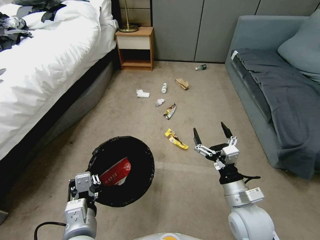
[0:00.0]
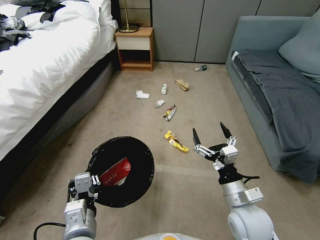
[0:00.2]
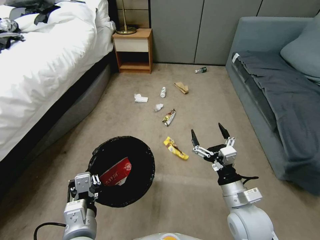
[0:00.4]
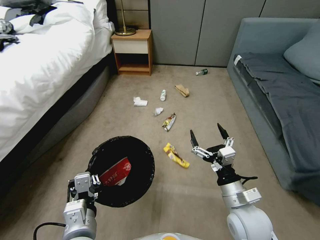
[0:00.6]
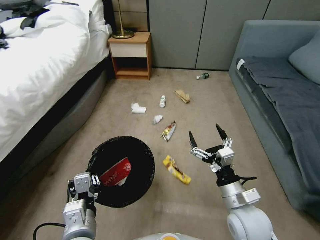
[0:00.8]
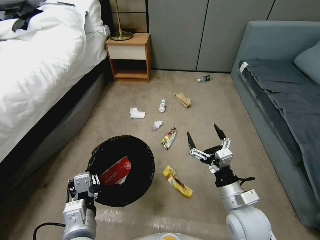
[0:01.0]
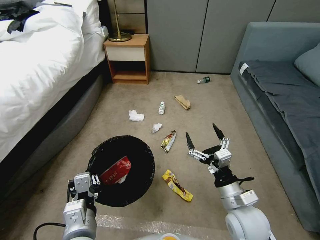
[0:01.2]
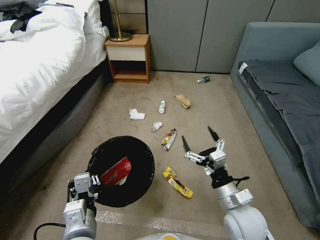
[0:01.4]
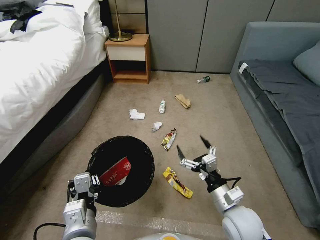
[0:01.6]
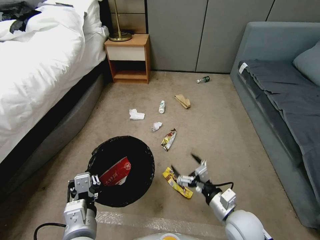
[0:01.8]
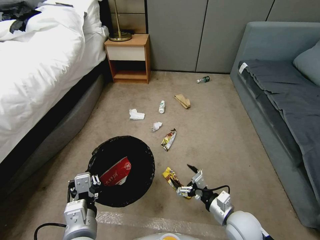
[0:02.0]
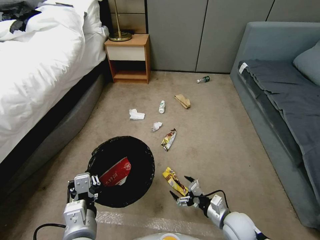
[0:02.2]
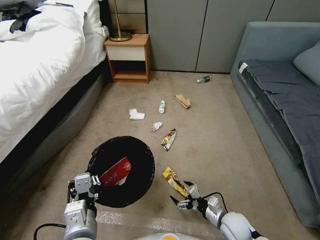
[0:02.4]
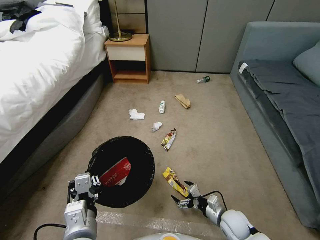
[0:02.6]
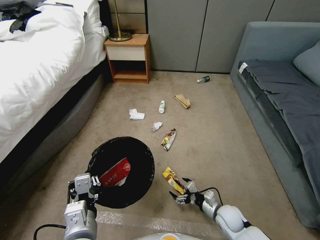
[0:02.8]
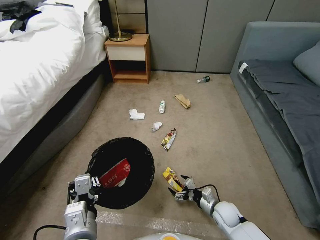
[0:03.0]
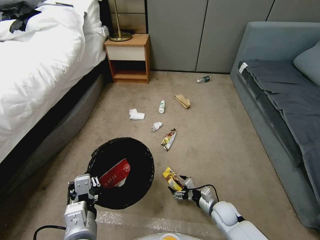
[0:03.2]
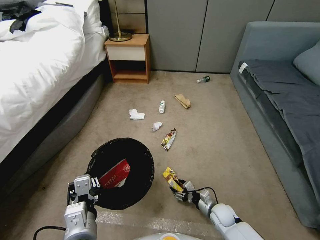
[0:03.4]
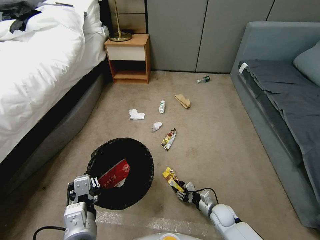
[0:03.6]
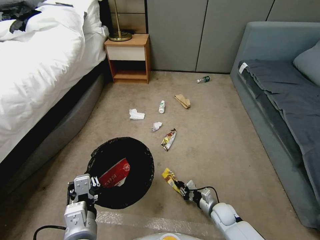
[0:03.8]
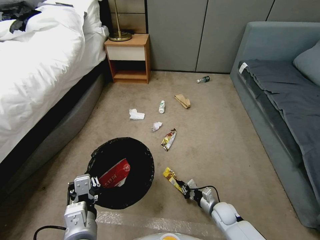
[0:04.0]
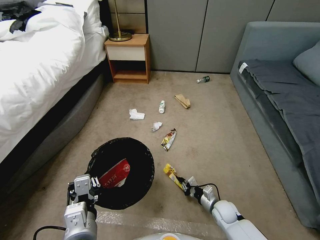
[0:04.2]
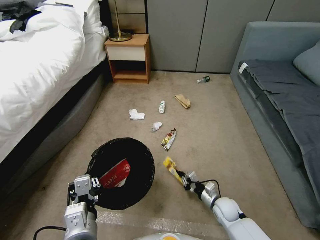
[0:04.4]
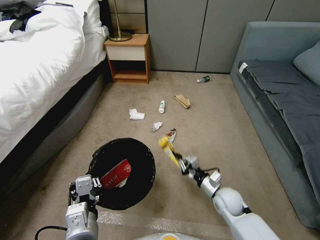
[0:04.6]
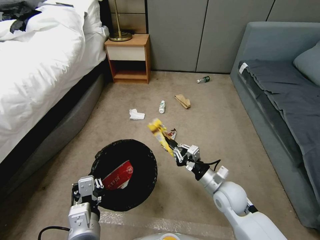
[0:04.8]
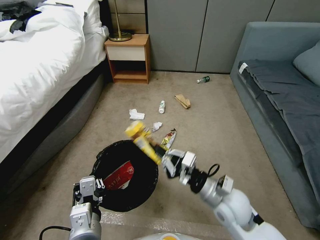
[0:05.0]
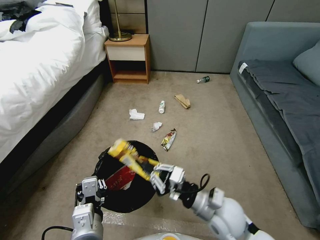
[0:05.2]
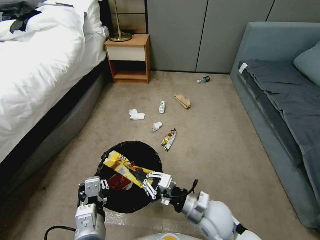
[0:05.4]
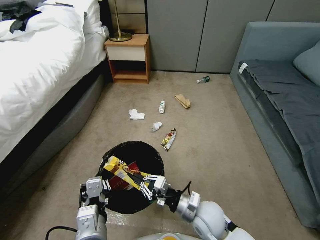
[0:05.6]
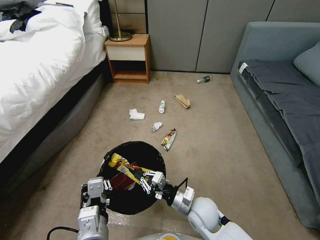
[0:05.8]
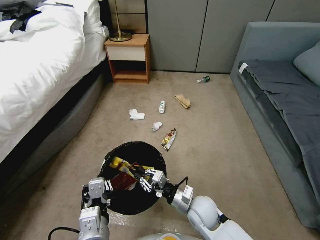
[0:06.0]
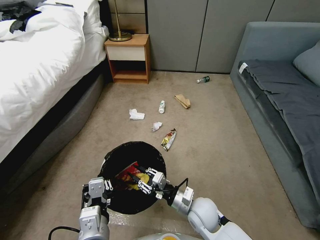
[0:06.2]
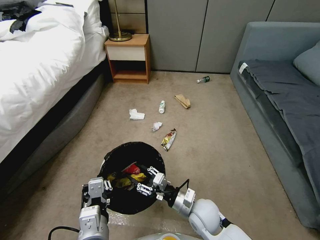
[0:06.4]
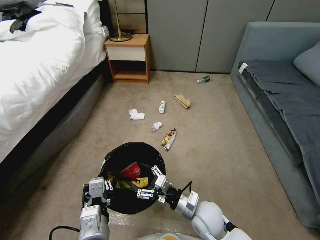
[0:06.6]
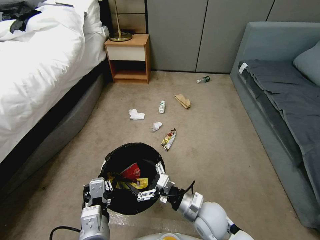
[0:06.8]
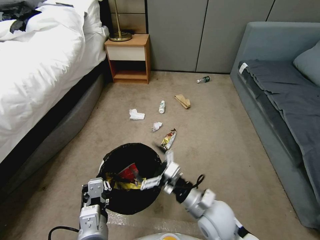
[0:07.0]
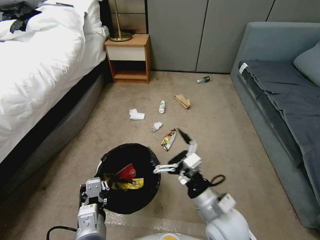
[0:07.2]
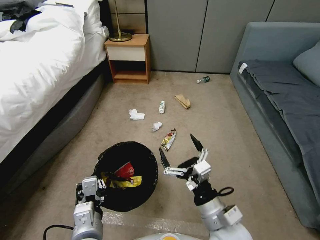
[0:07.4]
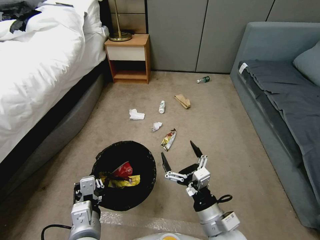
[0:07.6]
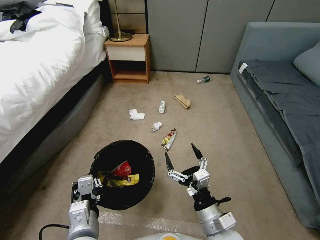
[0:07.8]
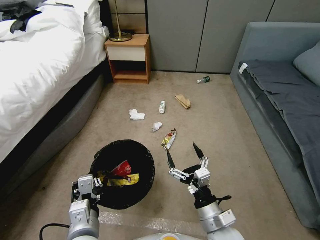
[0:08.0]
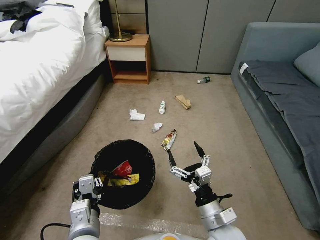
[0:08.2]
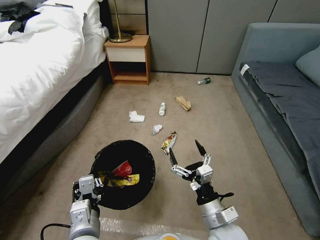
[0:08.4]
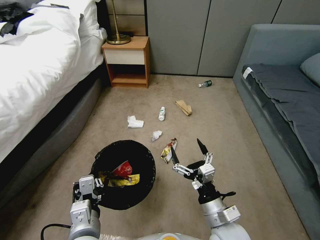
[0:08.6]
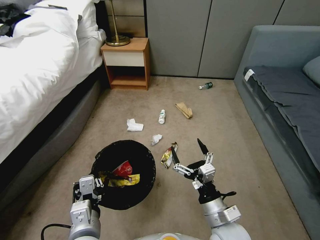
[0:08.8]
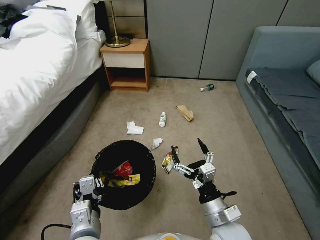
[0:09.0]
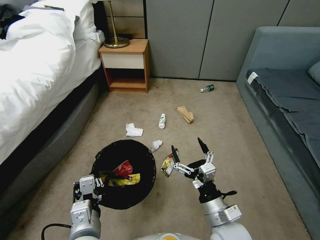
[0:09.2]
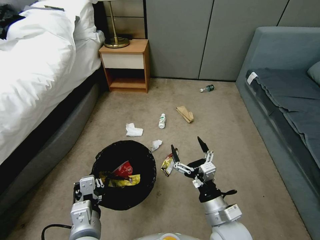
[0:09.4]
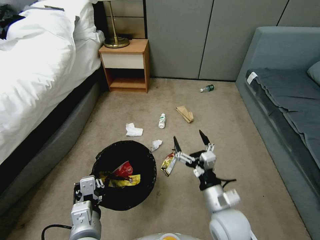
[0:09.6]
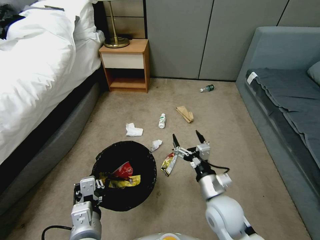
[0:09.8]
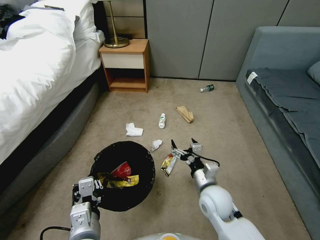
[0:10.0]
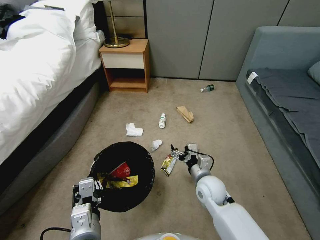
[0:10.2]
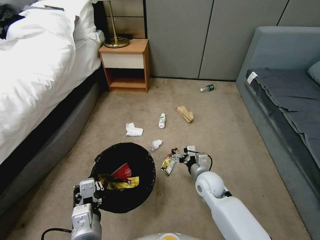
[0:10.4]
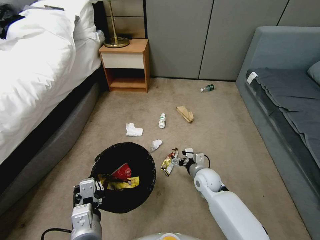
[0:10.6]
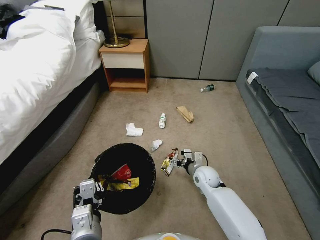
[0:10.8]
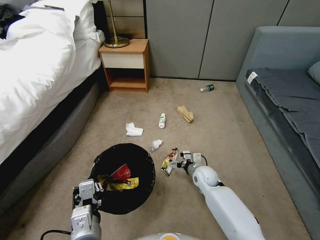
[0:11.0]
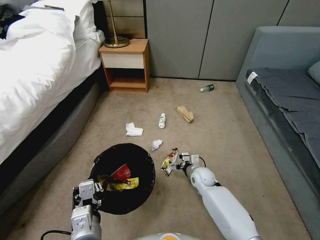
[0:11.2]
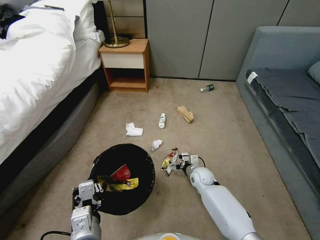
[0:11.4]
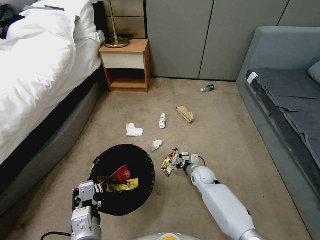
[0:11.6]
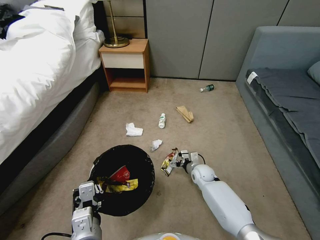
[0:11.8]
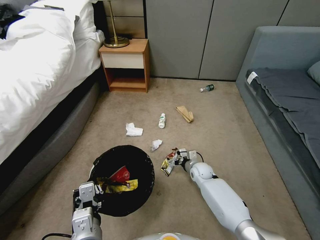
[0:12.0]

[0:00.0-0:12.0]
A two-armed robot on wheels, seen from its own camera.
Task of the whole recording: Pick up the trash bin, then pick up the garbage from the floor and place it into the trash bin.
0:01.6 to 0:03.0: The right gripper goes about 20 cm downward.
0:03.0 to 0:04.4: The right gripper closes its fingers.
0:04.4 to 0:06.0: The right gripper is displaced to the left and upward by about 15 cm.
0:06.0 to 0:07.6: The right gripper is displaced backward and upward by about 15 cm, and opens up.
0:09.0 to 0:10.4: The right gripper goes roughly 15 cm forward.
0:10.4 to 0:12.0: The right gripper travels downward and forward by some 15 cm.

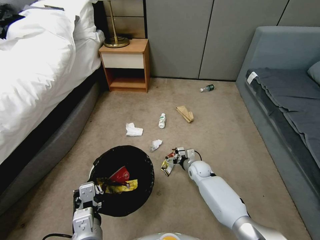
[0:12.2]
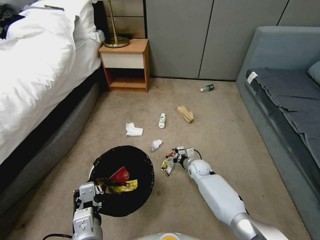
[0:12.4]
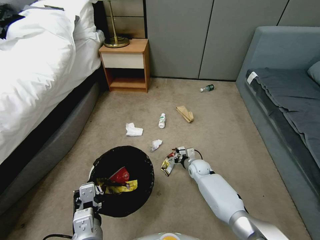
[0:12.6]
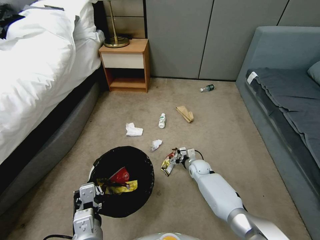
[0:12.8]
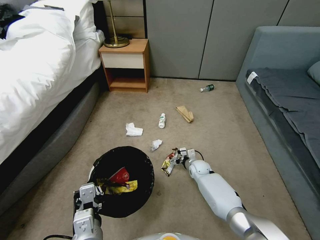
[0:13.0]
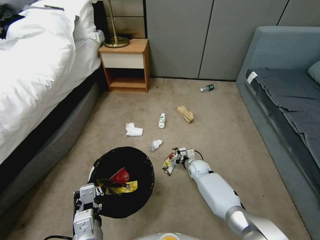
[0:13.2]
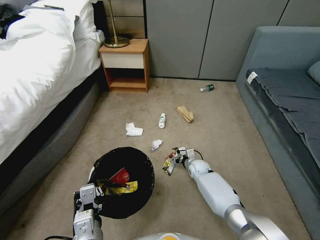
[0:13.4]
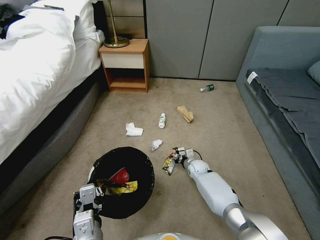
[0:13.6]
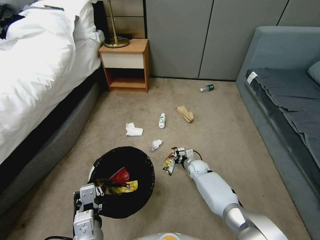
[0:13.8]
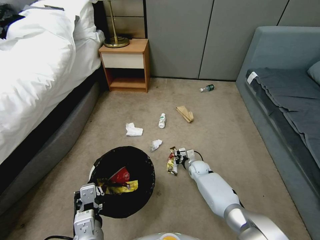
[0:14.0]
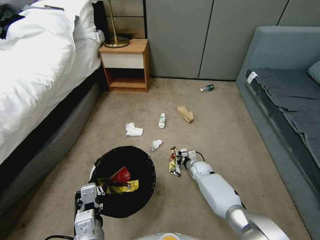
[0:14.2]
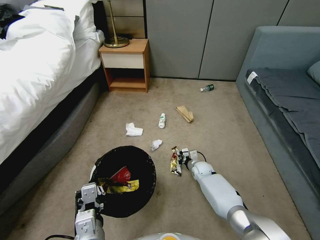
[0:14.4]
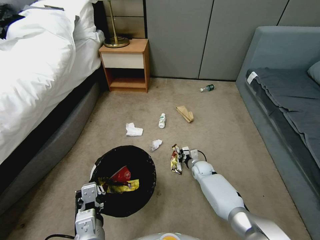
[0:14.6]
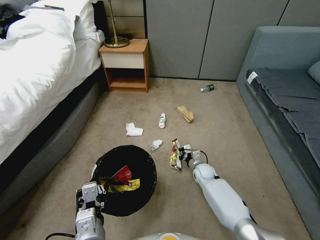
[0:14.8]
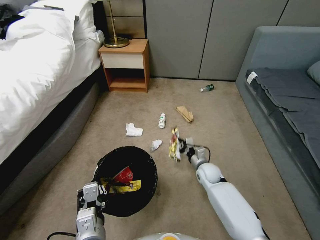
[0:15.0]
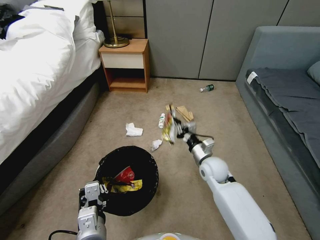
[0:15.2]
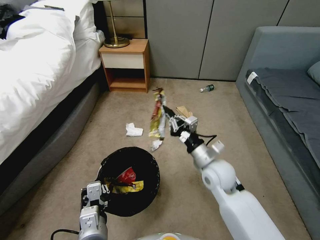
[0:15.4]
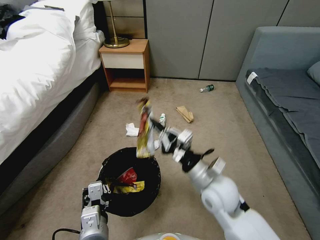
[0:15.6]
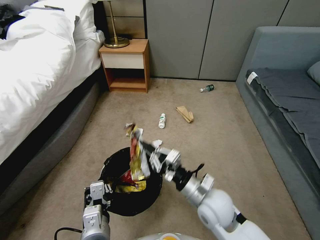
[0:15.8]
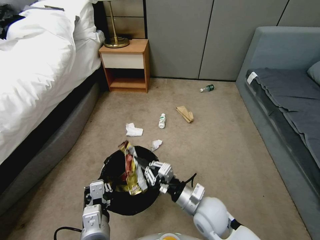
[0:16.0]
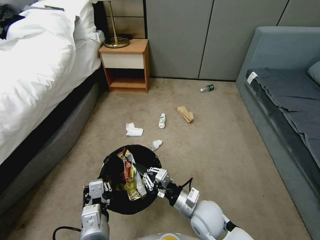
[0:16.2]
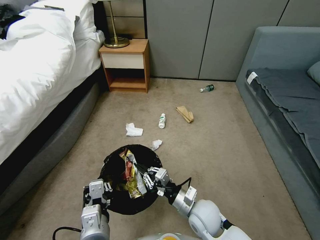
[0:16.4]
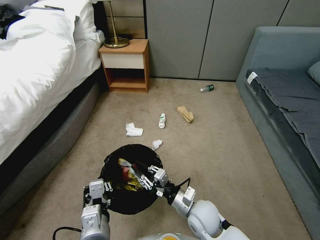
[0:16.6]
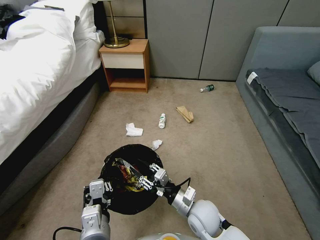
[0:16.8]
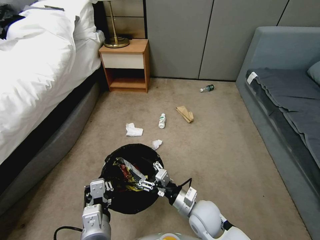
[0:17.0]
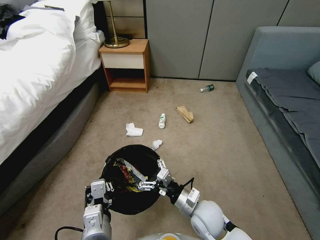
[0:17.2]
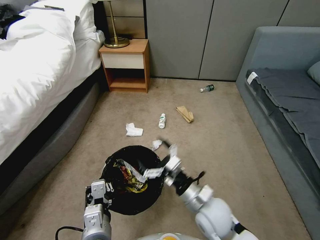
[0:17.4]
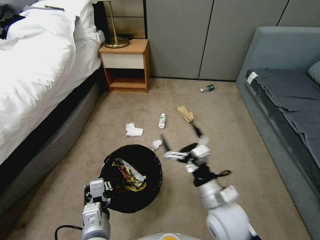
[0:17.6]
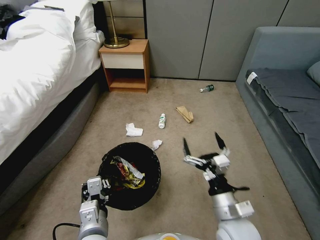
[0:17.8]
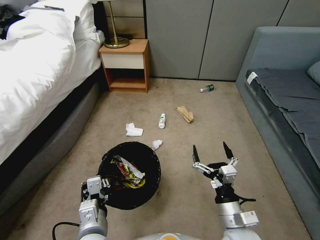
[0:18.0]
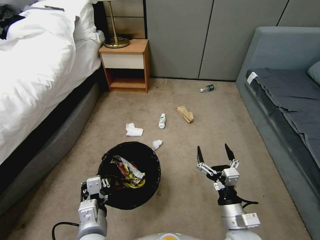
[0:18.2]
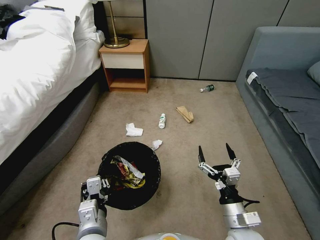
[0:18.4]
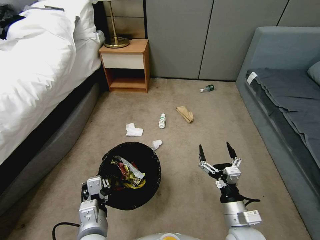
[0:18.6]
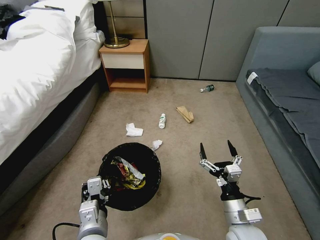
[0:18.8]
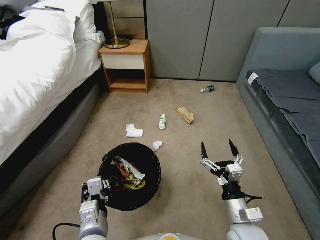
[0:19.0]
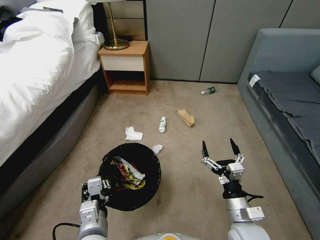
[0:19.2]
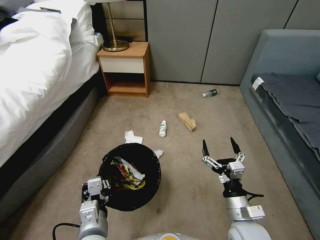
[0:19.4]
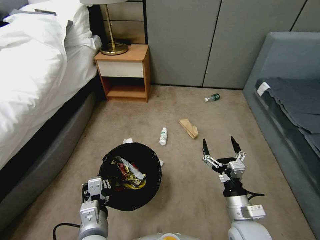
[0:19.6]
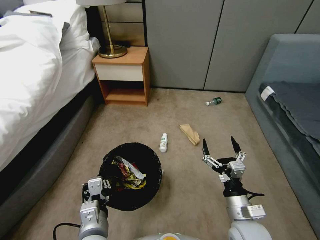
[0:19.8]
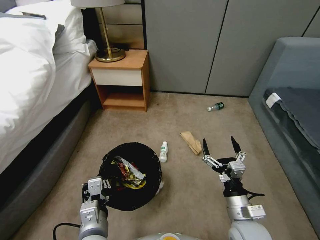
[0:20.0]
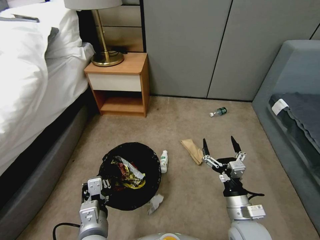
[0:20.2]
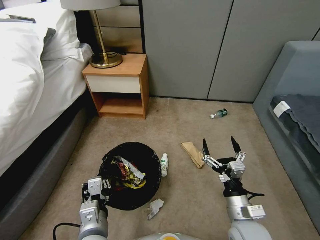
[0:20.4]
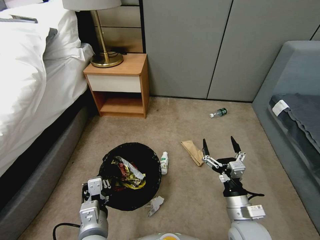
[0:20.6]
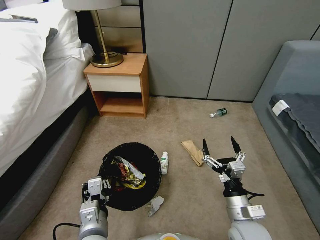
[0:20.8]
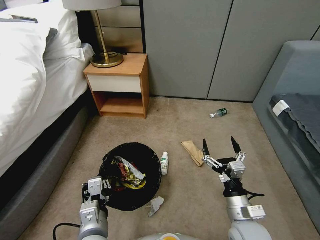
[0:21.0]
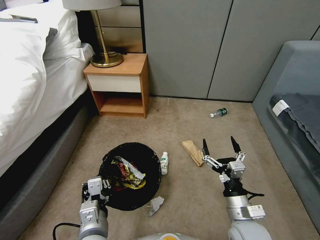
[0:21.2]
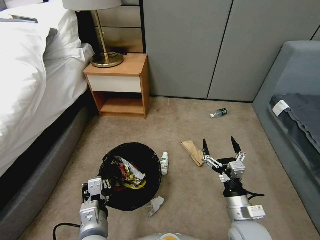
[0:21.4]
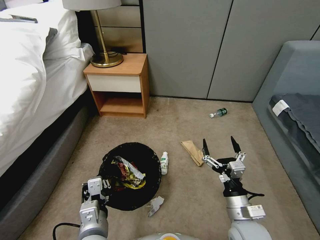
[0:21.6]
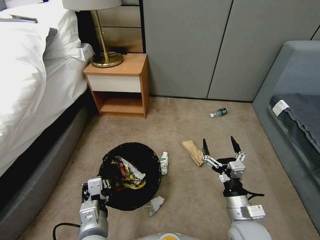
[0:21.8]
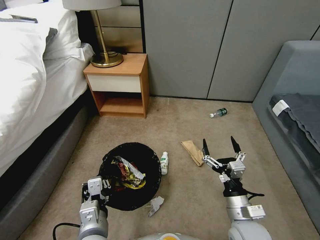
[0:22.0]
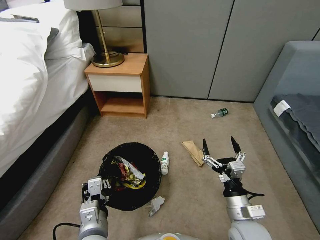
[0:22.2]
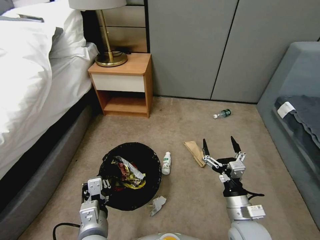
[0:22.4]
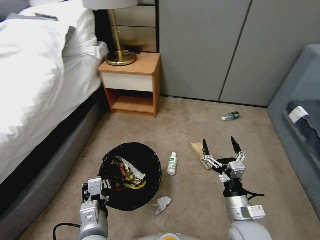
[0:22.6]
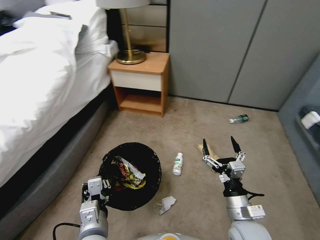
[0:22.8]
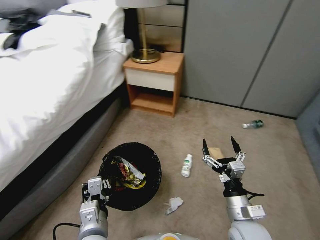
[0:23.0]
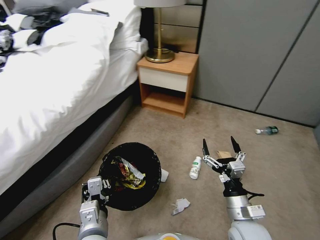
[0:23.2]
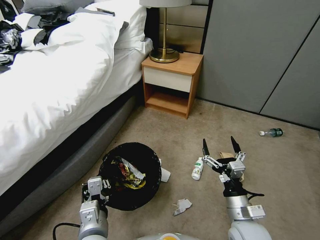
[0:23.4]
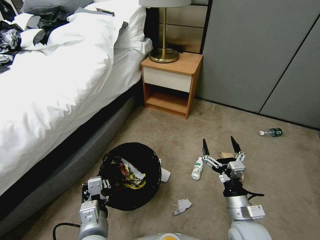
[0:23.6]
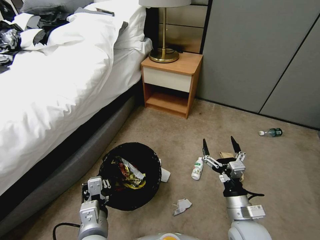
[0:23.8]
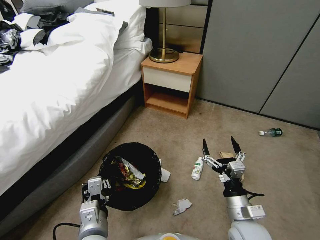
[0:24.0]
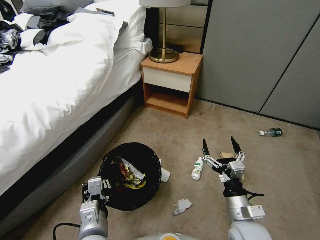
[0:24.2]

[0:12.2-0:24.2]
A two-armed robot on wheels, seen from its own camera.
Task of the whole recording: Pick up the trash bin, then pick up the garbage from the floor and place it into the trash bin.
0:12.2 to 0:13.8: The right gripper closes.
0:13.8 to 0:15.2: The right gripper goes roughly 20 cm upward and backward, and closes up.
0:15.2 to 0:16.6: The right gripper goes roughly 15 cm backward and to the left.
0:16.6 to 0:18.2: The right gripper shifts about 10 cm to the right and backward, and opens its fingers.
